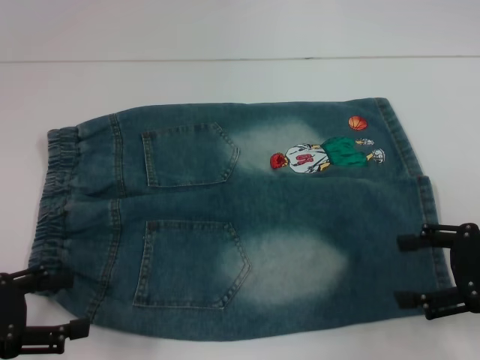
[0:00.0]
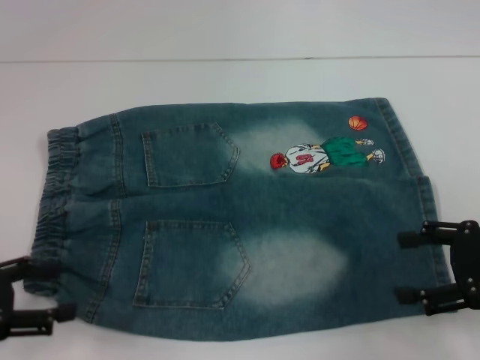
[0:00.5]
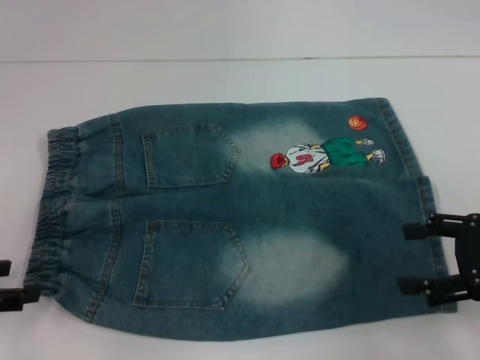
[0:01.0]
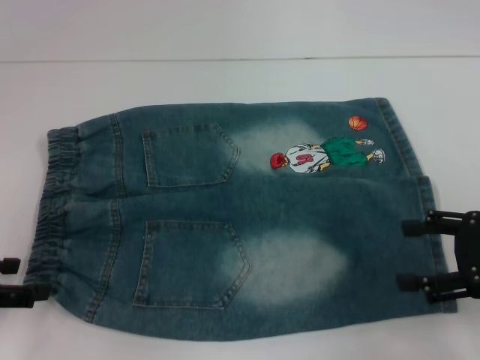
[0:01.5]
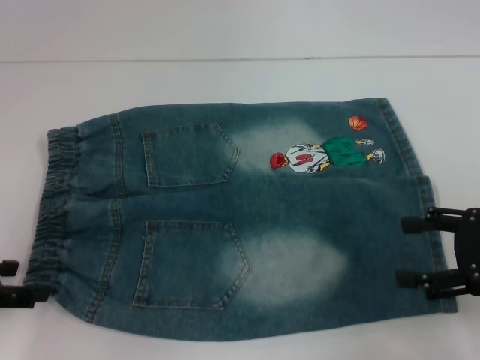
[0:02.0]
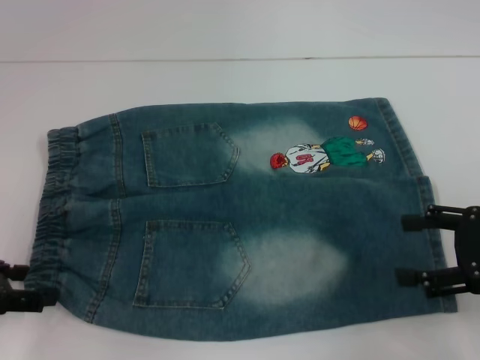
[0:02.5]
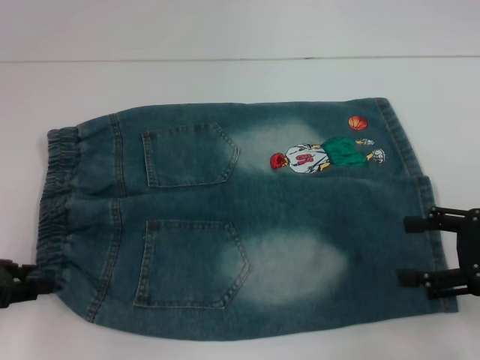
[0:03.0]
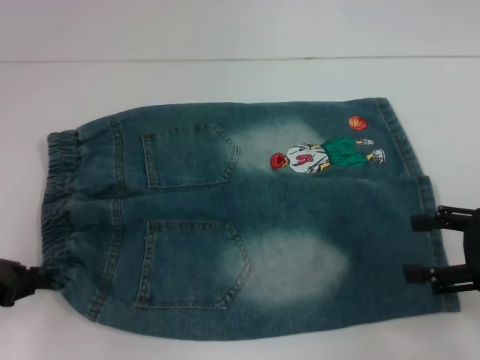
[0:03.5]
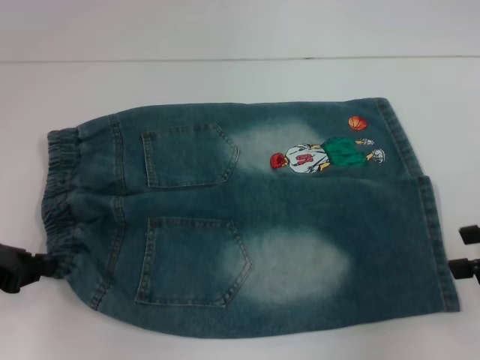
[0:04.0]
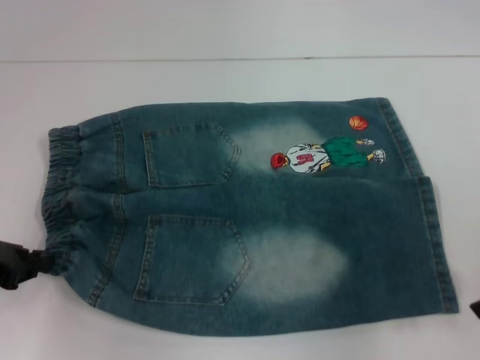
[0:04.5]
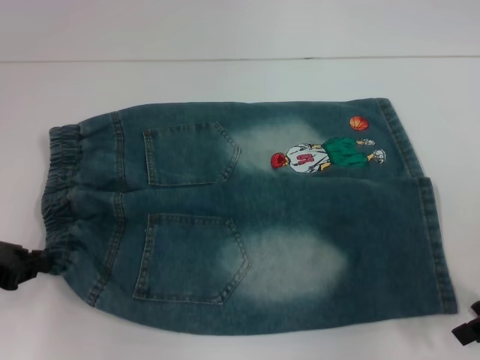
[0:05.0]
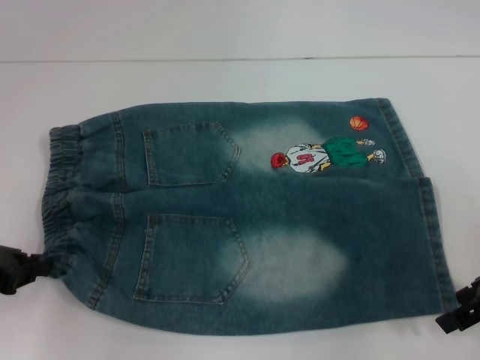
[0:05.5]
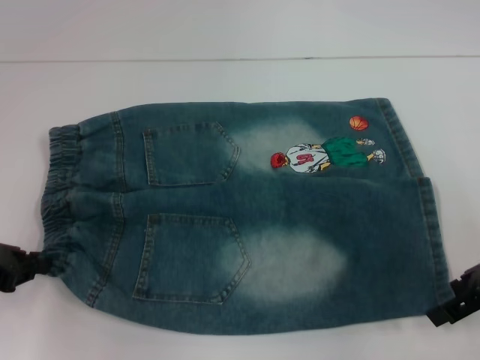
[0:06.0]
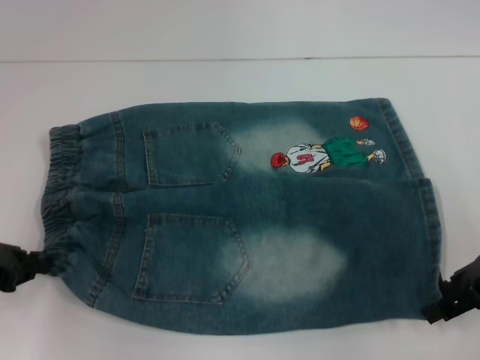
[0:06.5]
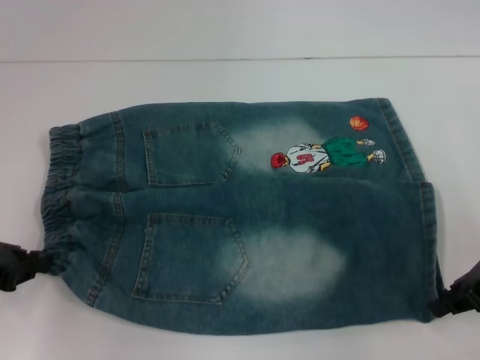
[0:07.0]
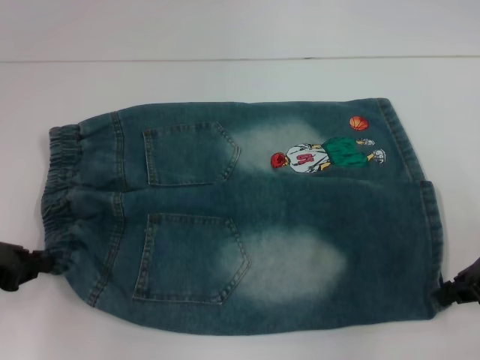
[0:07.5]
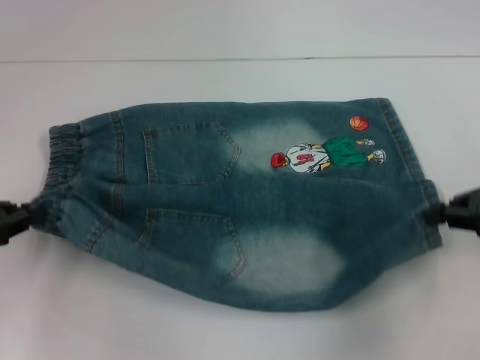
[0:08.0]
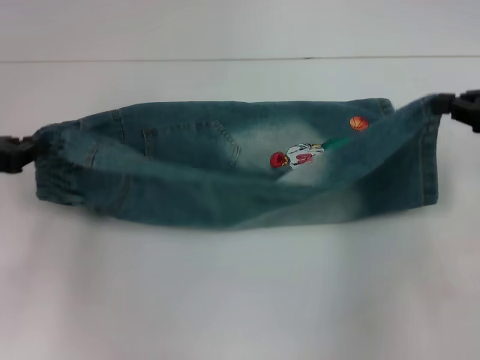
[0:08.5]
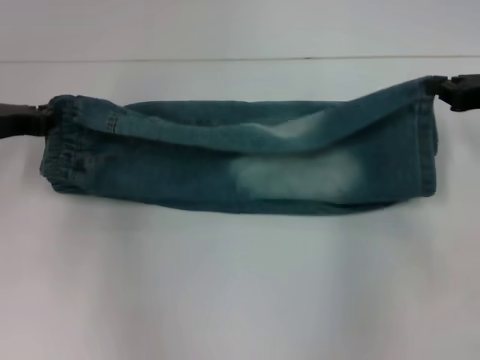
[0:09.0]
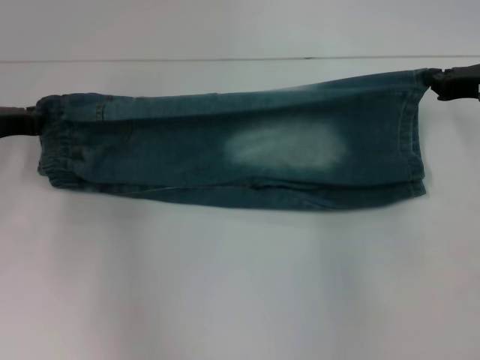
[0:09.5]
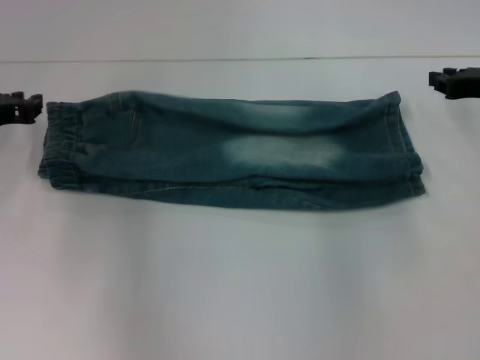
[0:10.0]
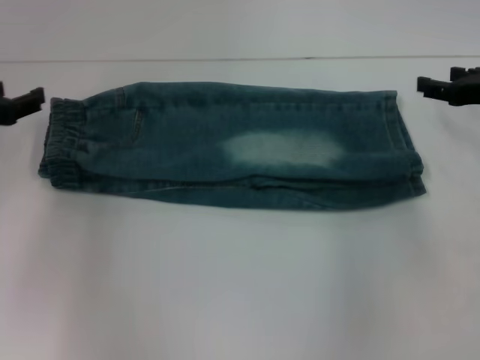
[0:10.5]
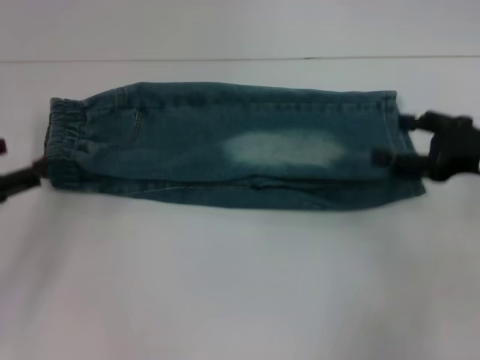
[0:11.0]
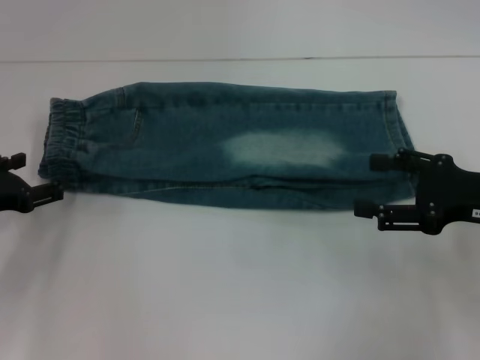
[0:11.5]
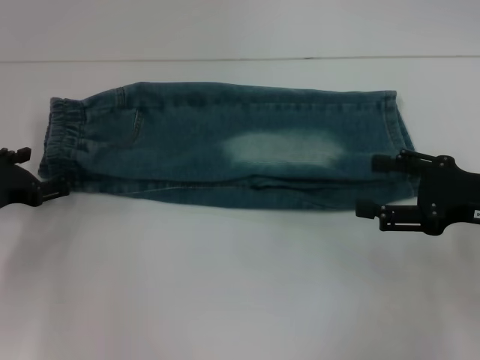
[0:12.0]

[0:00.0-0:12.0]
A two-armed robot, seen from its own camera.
Step, 0:00.0 to 0:03.5: Hold the lower left waistband with your left hand.
Step, 0:04.0 to 0:07.0: Grab the lower right pant leg with your right hand.
Step, 0:07.5 to 0:10.0: Fold upward with your right hand.
0:02.0 to 0:04.0: The right gripper shifts by approximately 5 cm, while the left gripper closes its fingers.
0:04.0 to 0:06.0: The right gripper ends up approximately 5 cm from where it was.
0:06.0 to 0:08.0: The right gripper closes its fingers.
0:08.0 to 0:10.0: The grippers both shift forward by about 10 cm.
0:10.0 to 0:12.0: The left gripper goes approximately 10 cm backward and downward, and opens. The right gripper moves backward, approximately 10 cm, and opens its fingers.

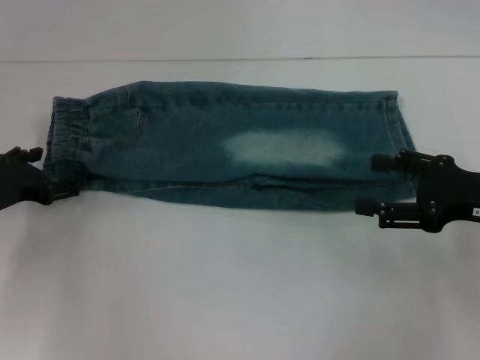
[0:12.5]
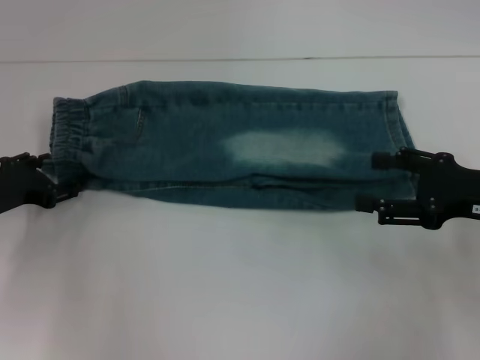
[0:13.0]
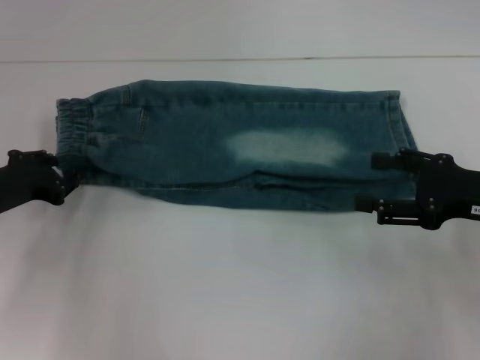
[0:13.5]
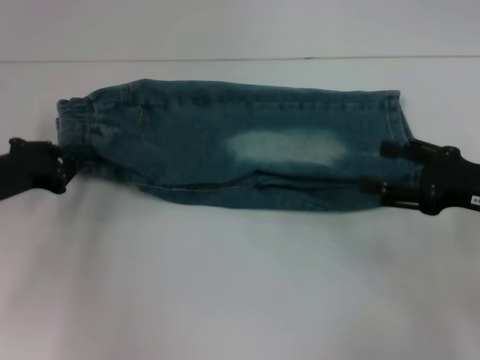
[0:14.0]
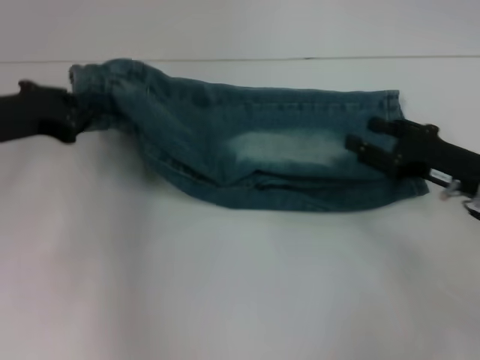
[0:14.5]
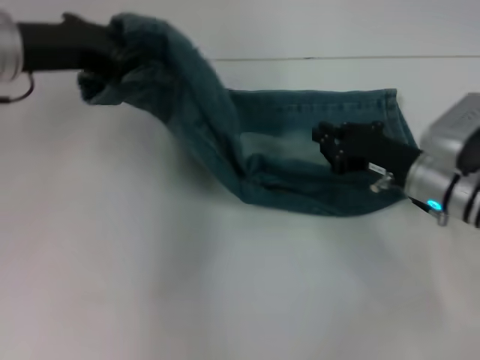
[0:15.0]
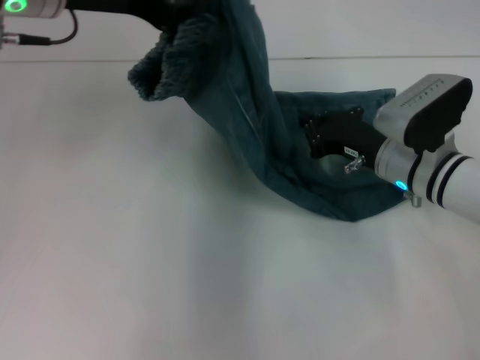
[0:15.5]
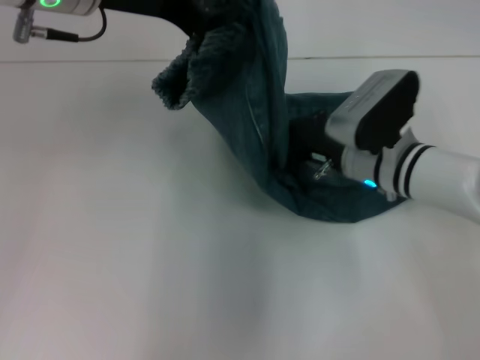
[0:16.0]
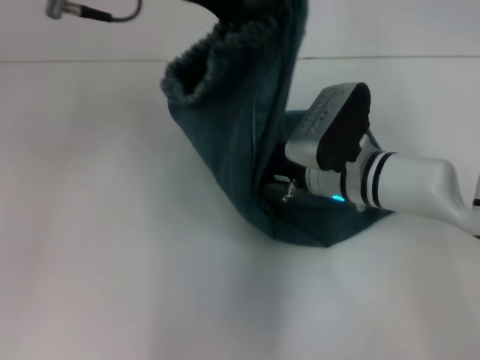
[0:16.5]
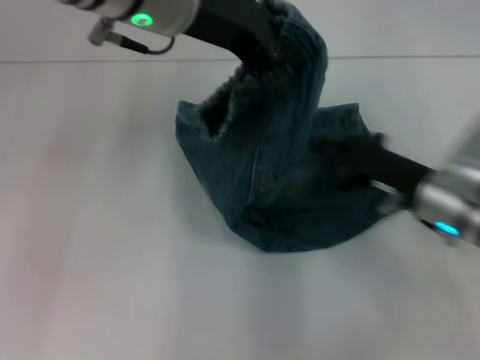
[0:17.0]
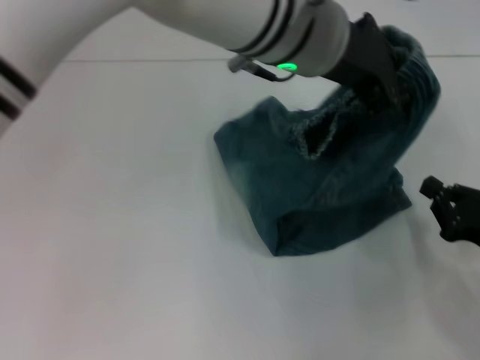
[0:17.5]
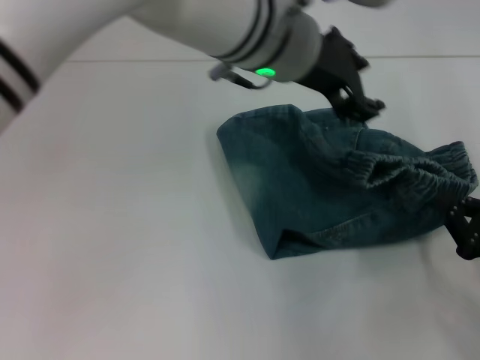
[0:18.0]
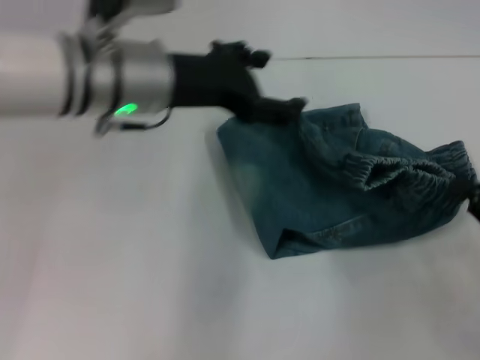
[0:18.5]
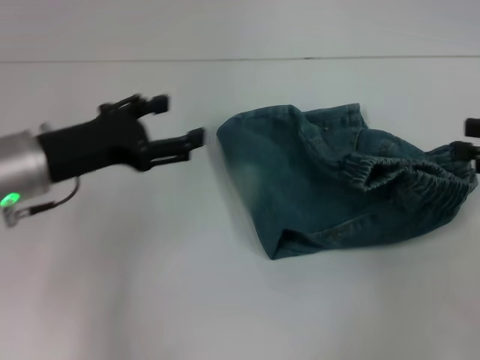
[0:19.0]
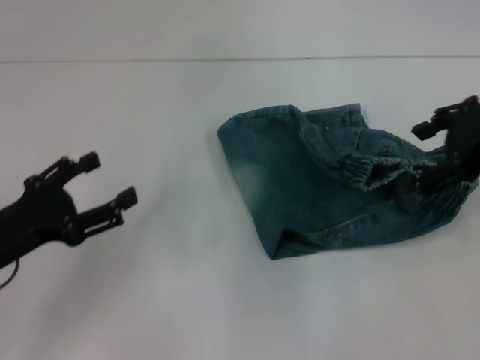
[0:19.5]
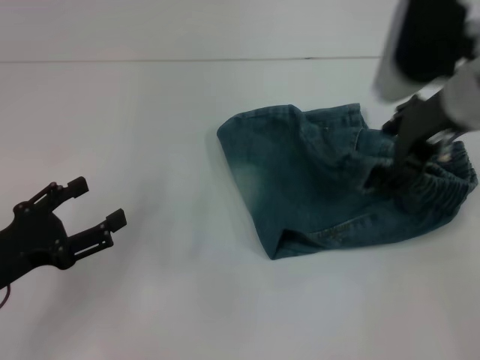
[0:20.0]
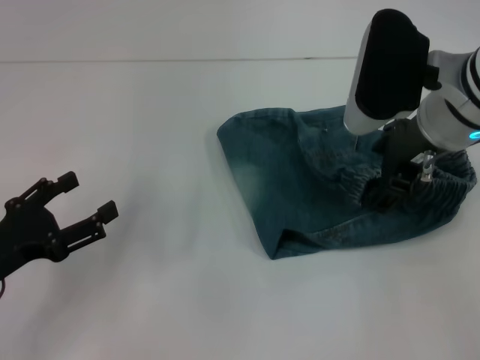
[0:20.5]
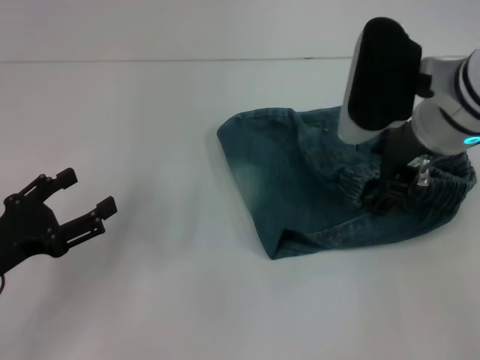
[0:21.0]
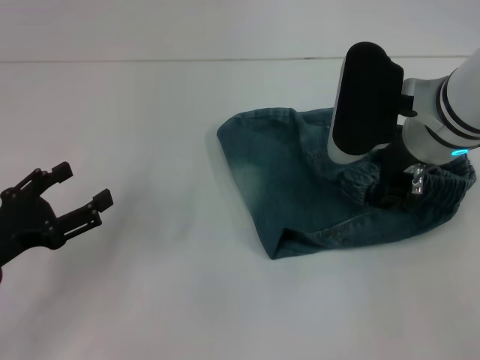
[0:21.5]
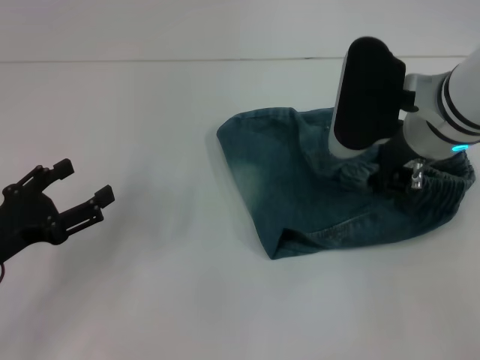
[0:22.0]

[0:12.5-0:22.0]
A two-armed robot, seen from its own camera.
Step, 0:14.5 to 0:16.0: Press the middle of the pants with your right hand.
Step, 0:17.0 to 0:18.0: Fold to the left with your right hand.
0:12.5 to 0:14.5: The right gripper moves about 5 cm, while the left gripper shifts about 10 cm upward, and closes up.
0:14.5 to 0:16.5: The right gripper travels to the left by some 15 cm, and closes, while the left gripper goes roughly 20 cm to the right and upward.
0:16.5 to 0:18.0: The right gripper is displaced to the right and backward by approximately 25 cm, while the left gripper heads to the right and downward, covering some 15 cm.
0:18.0 to 0:20.0: The right gripper is displaced upward, forward and to the left by approximately 30 cm, and opens up; the left gripper moves to the left, downward and backward, about 40 cm, and opens.
0:20.0 to 0:22.0: The right gripper closes up.

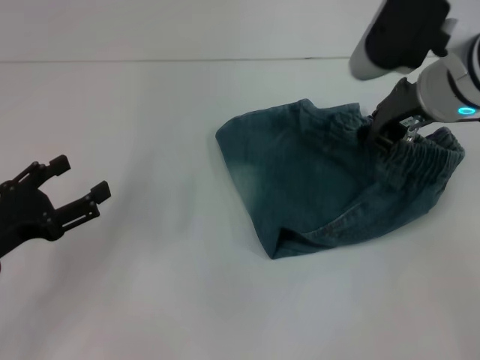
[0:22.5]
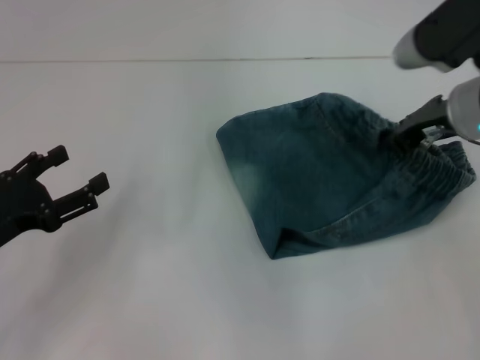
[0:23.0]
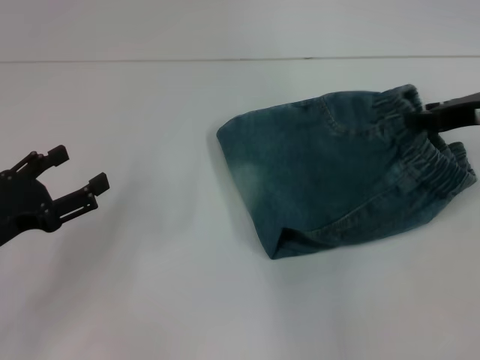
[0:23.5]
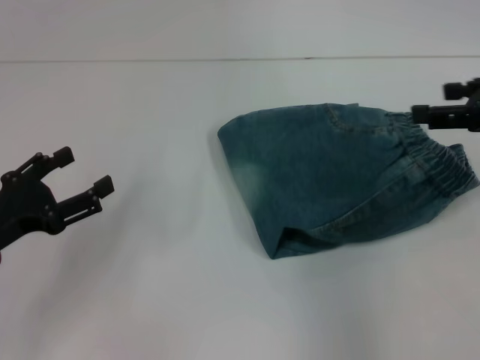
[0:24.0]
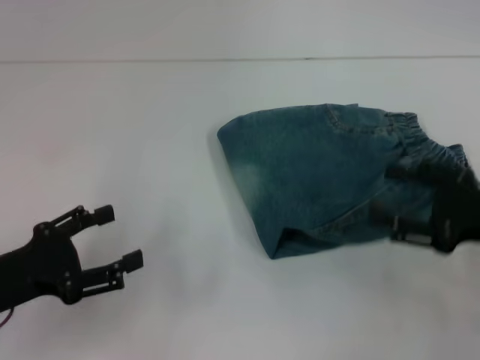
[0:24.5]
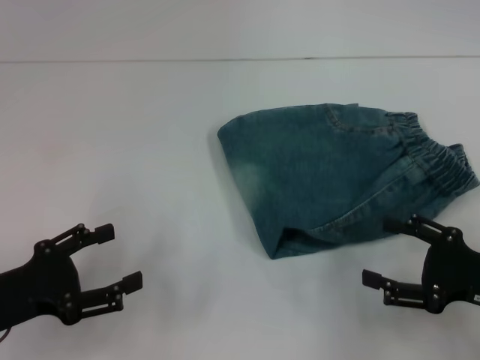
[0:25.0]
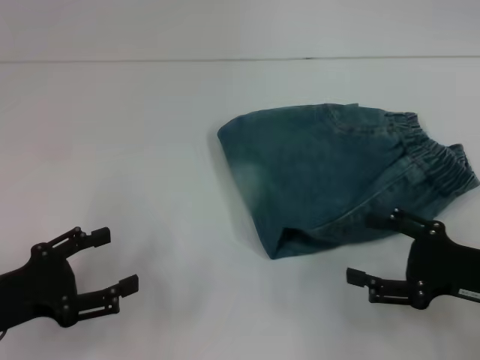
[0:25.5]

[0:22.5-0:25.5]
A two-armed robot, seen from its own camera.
0:22.5 to 0:24.0: The right gripper moves to the right and backward, approximately 15 cm, and opens its fingers.
0:24.0 to 0:25.5: The right gripper is displaced downward and backward by some 20 cm.

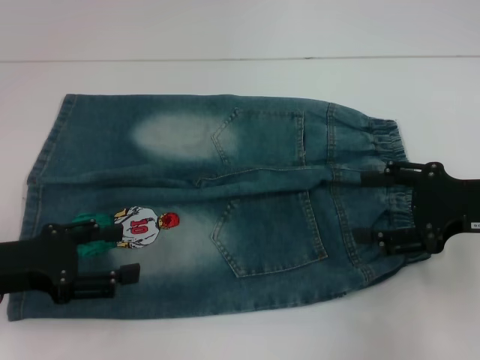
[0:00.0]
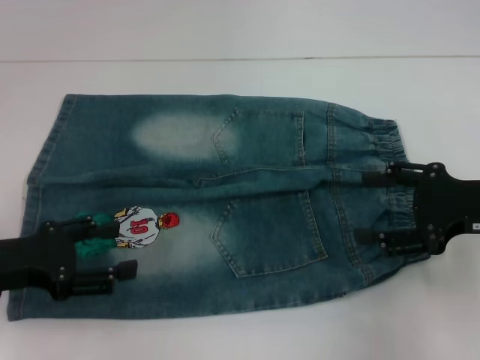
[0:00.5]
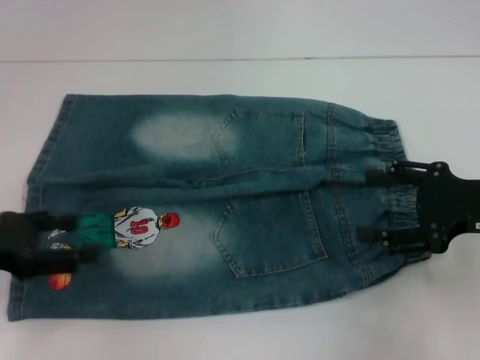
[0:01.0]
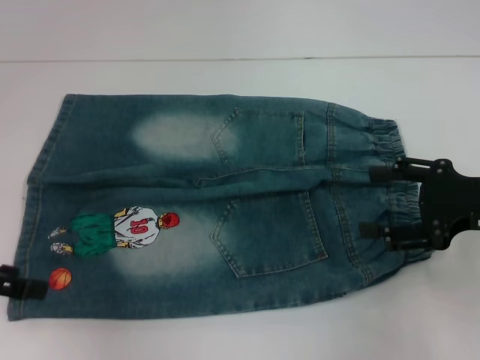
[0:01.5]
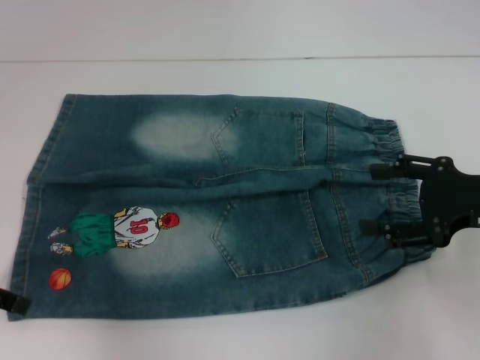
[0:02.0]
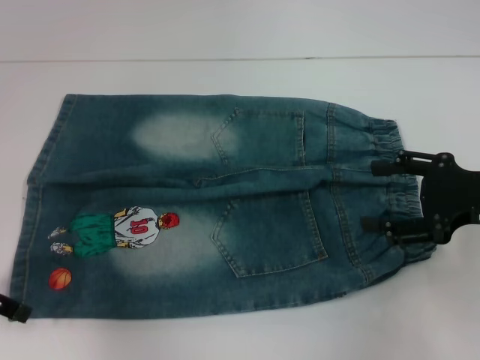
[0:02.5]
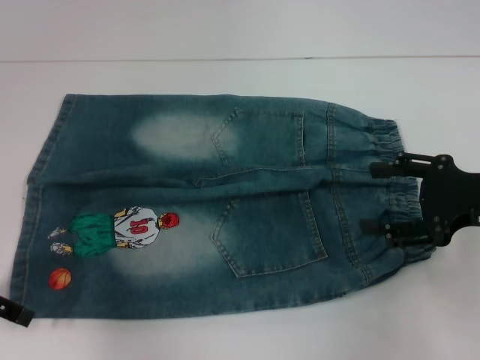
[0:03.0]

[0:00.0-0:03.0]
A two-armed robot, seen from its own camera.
0:00.0 to 0:01.5: The left gripper goes roughly 5 cm upward.
